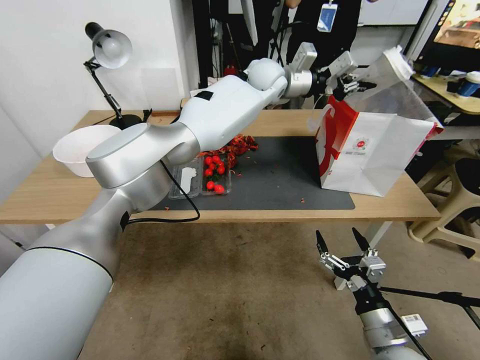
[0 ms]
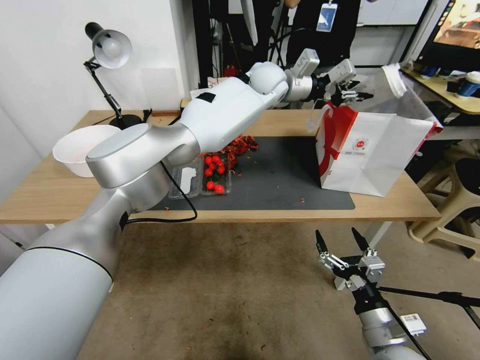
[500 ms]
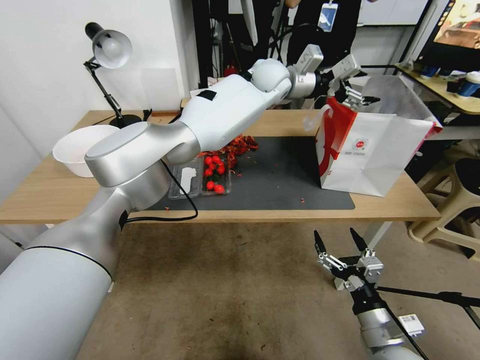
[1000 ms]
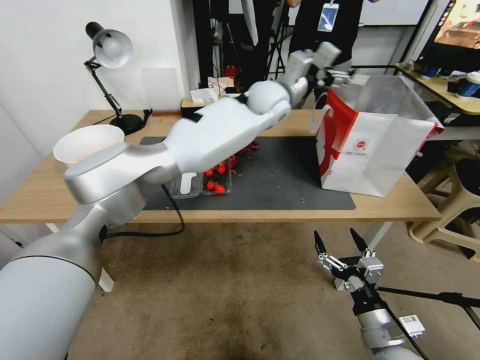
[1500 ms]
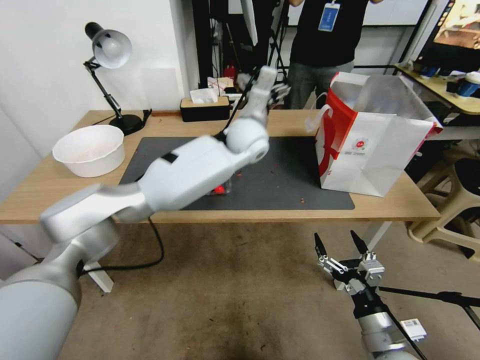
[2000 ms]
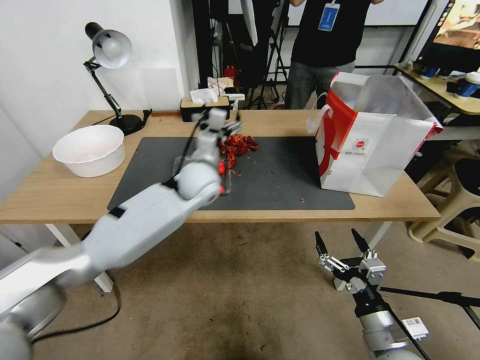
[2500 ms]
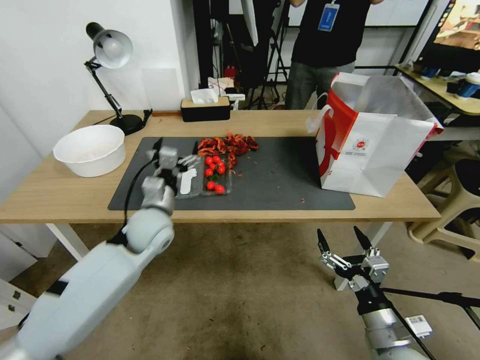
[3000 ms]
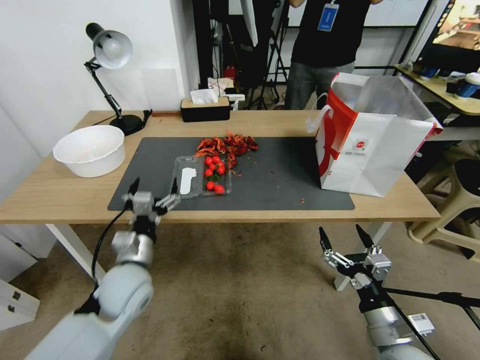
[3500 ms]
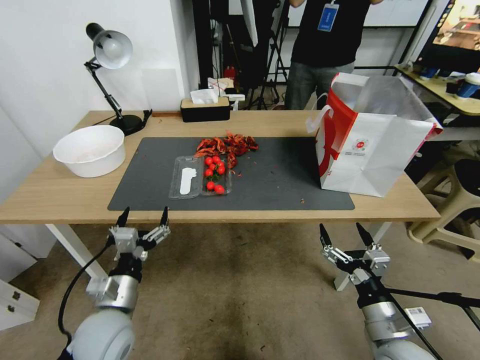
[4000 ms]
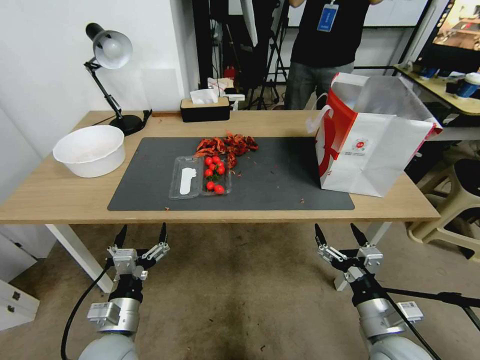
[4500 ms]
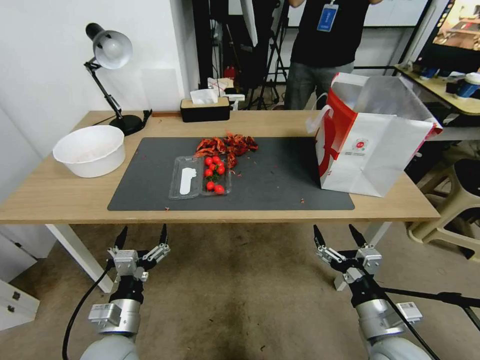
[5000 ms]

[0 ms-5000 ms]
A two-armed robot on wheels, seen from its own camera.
0 ms to 2500 ms: The left gripper goes roughly 30 cm downward, backward and to the left, and opens.
2500 ms to 5000 ms: The left gripper goes some 35 cm backward, downward and to the left.

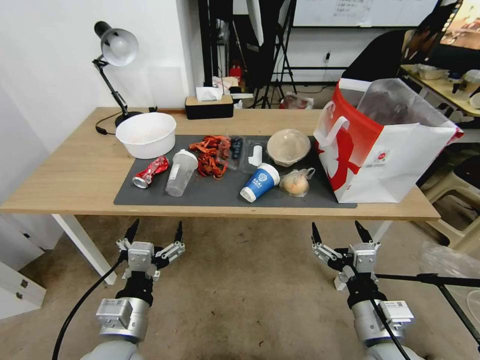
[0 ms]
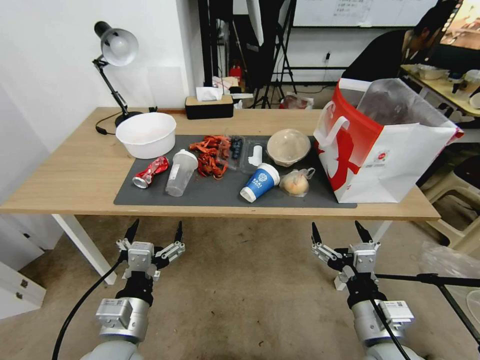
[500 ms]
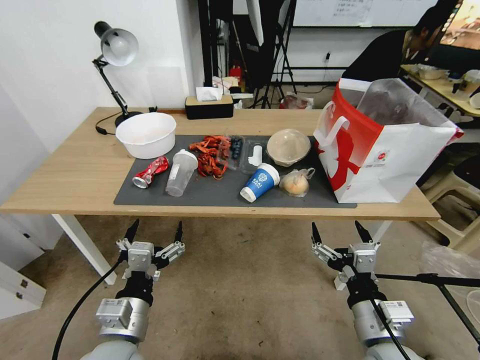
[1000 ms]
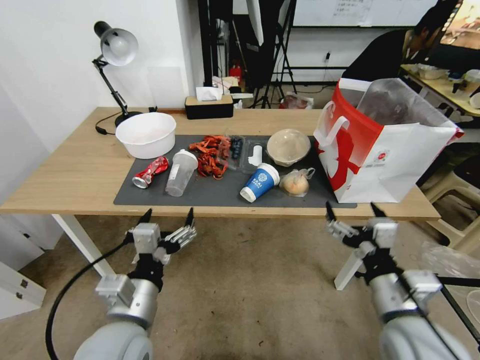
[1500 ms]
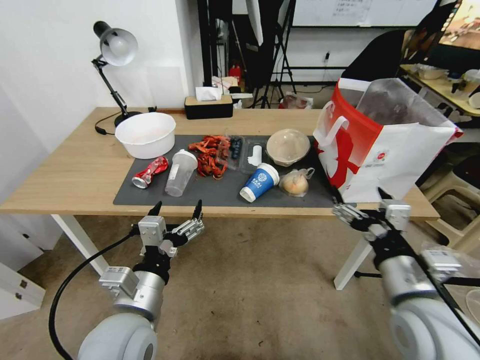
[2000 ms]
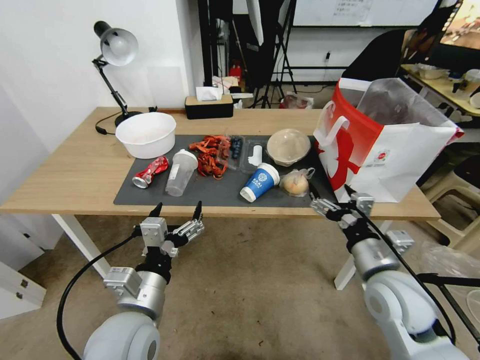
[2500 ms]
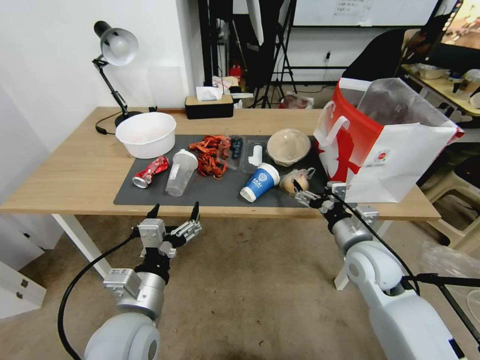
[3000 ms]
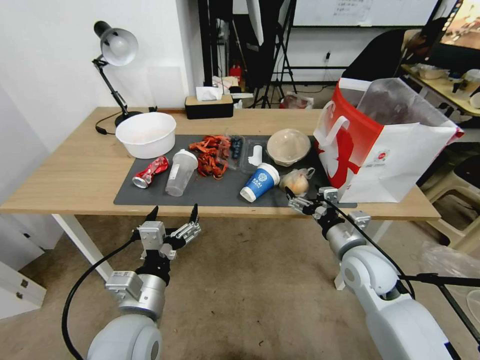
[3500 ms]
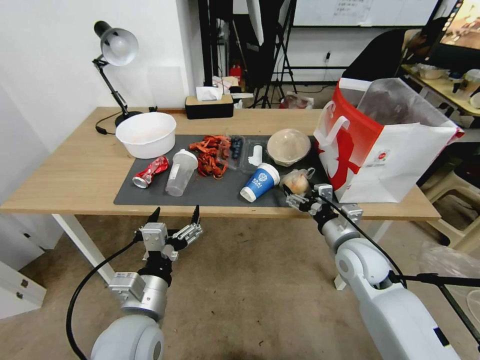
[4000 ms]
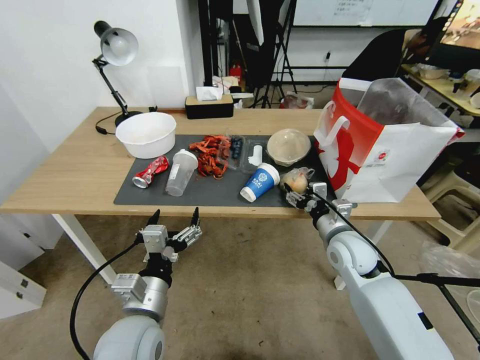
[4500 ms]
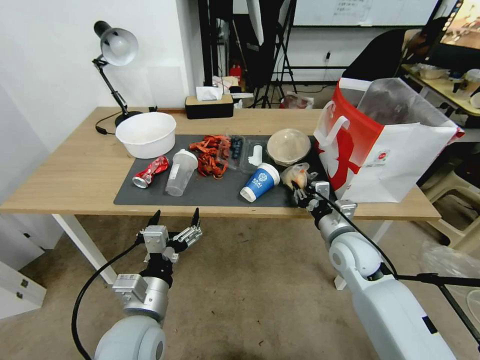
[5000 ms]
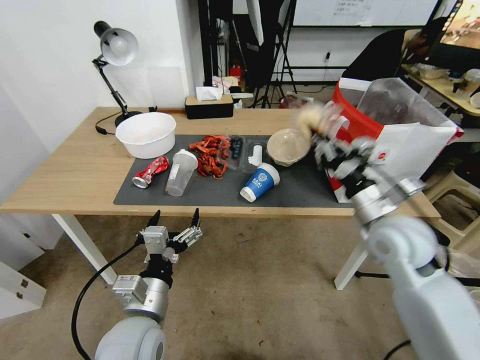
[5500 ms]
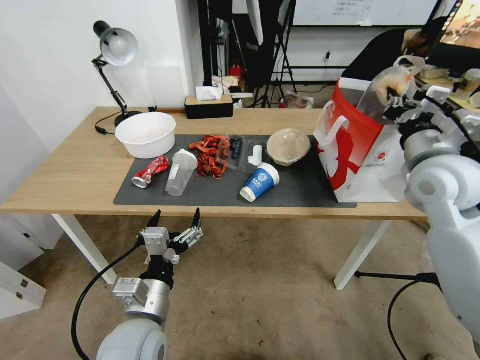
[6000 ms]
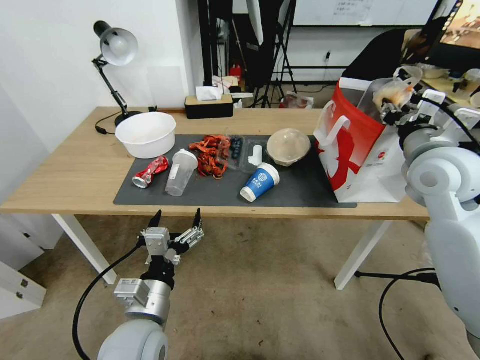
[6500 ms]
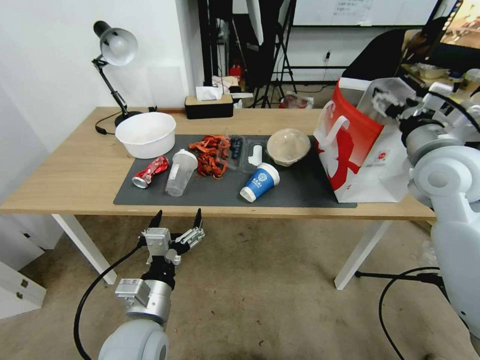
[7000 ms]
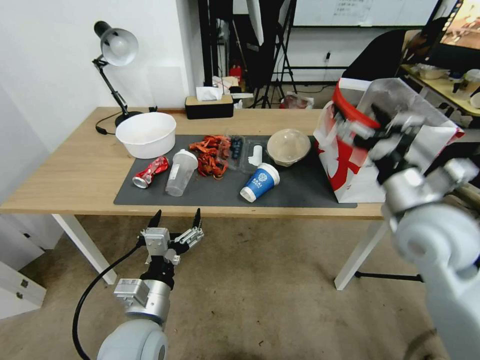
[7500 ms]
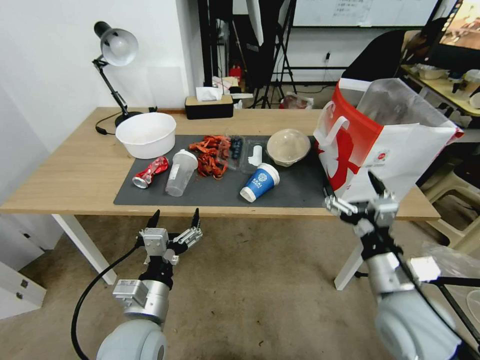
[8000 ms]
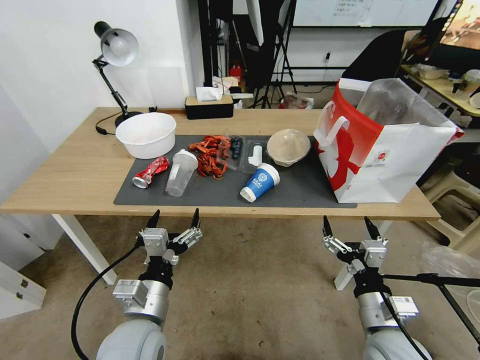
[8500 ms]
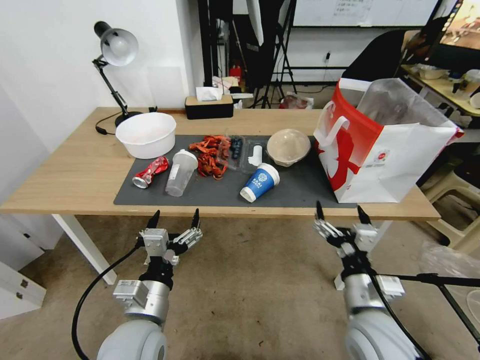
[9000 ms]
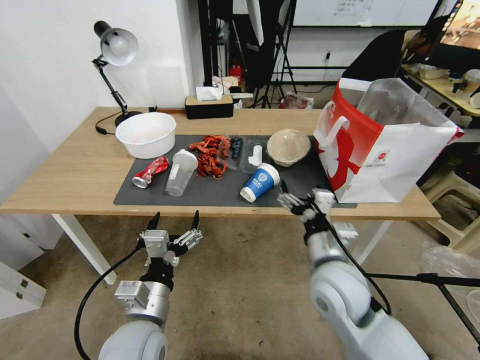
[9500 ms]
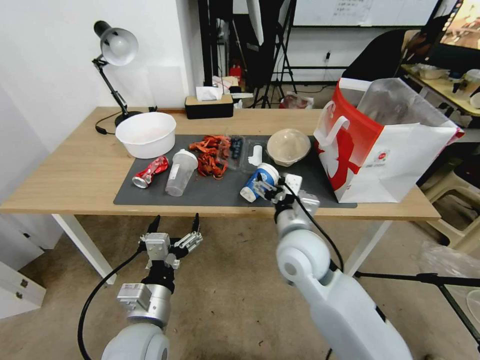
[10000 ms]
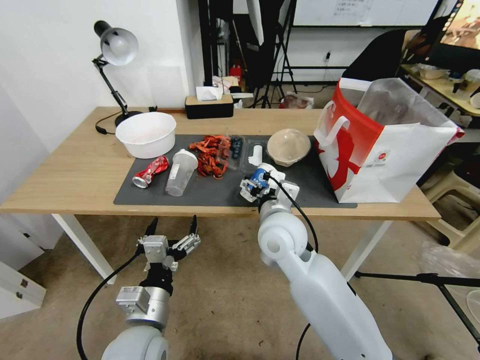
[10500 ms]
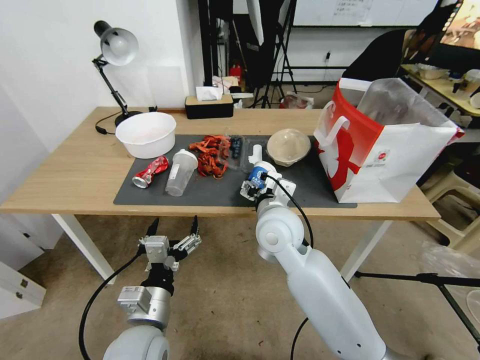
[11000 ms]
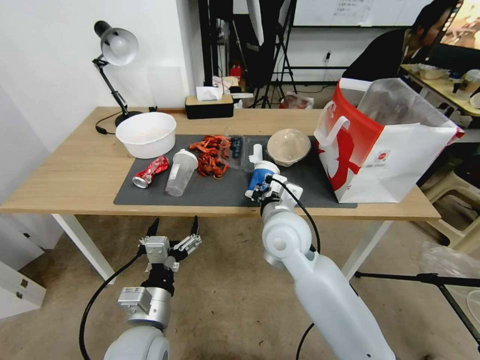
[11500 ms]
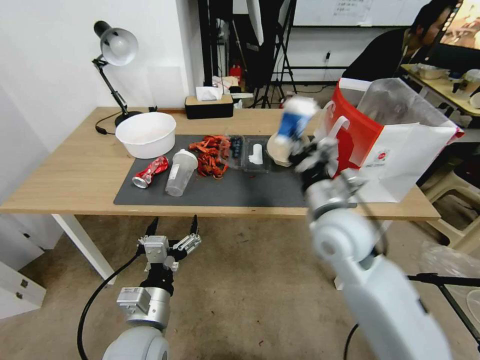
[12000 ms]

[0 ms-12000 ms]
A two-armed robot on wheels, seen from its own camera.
2000 ms to 4000 ms: The right gripper shifts roughly 15 cm forward and downward.
4000 ms to 6000 ms: The right gripper moves upward and to the right, roughly 20 cm, and closes its fingers.
6000 ms to 8000 ms: The right gripper travels backward, downward and to the left by approximately 25 cm, and opens.
8000 ms to 10000 ms: The right gripper travels to the left and forward by some 20 cm.
10000 ms to 12000 ms: The right gripper heads to the right and upward, covering some 10 cm, and closes its fingers.

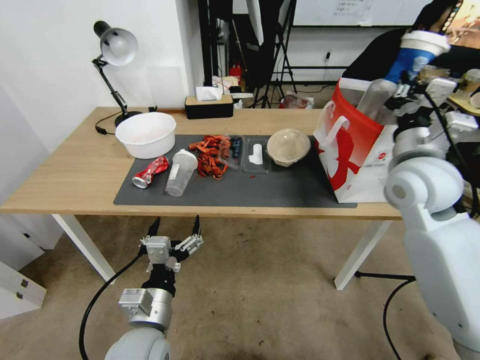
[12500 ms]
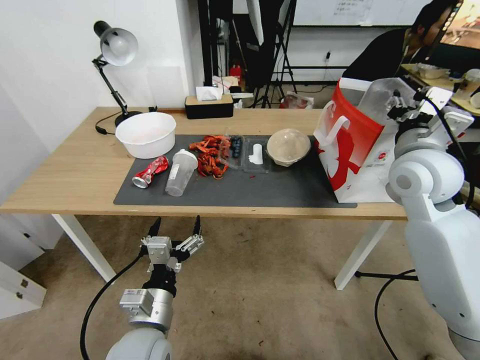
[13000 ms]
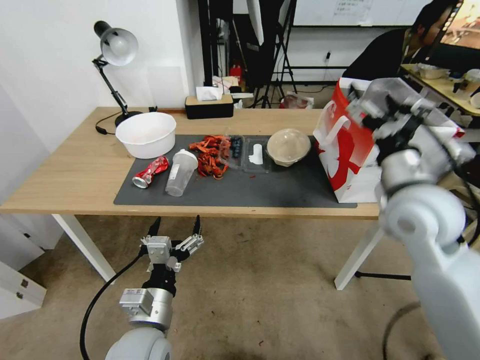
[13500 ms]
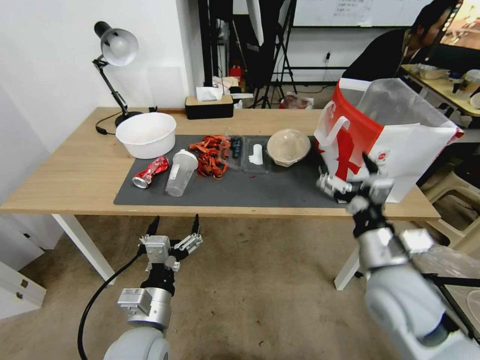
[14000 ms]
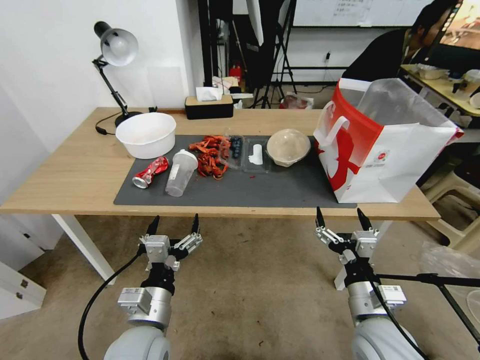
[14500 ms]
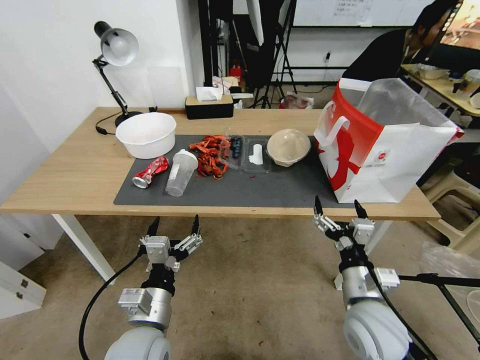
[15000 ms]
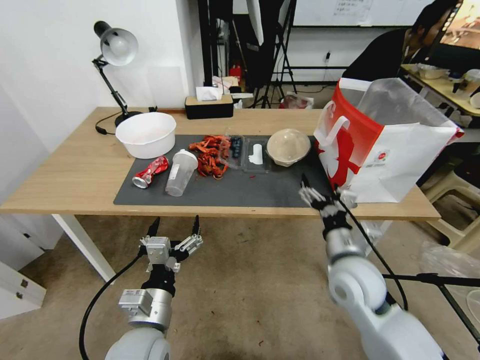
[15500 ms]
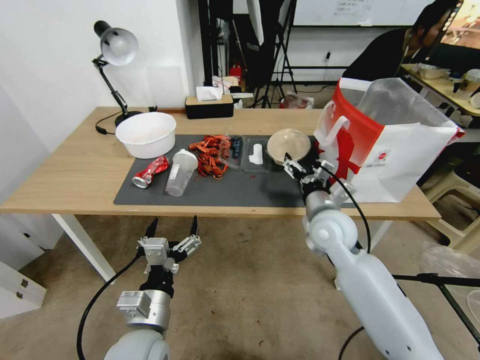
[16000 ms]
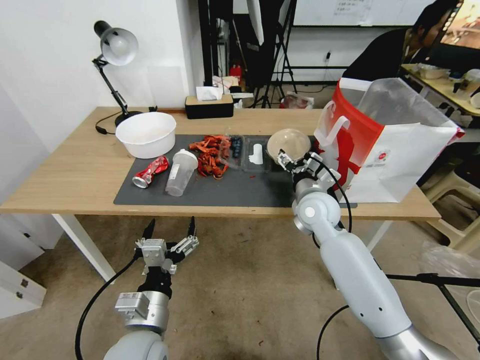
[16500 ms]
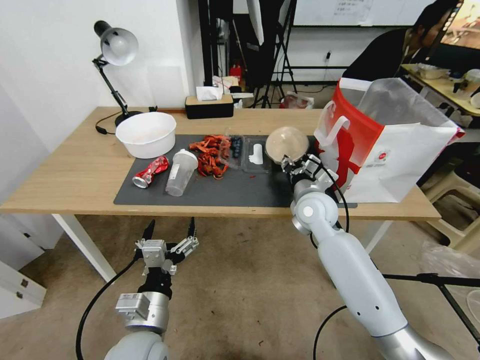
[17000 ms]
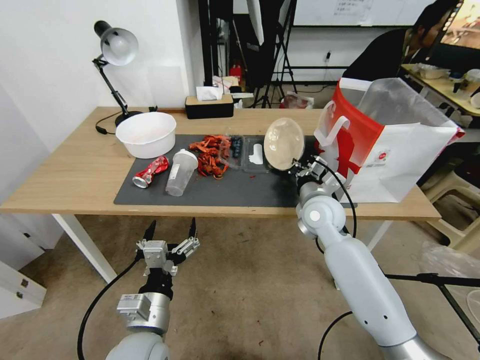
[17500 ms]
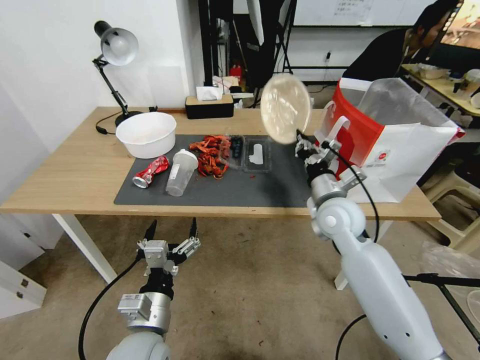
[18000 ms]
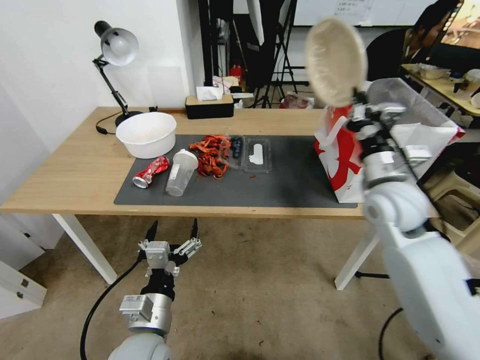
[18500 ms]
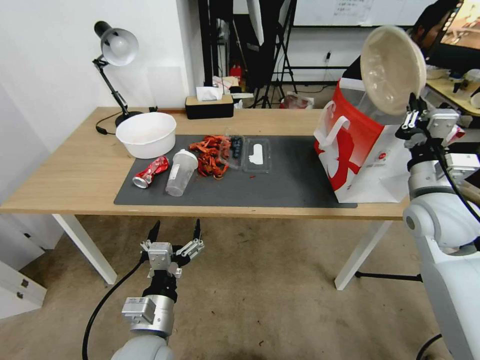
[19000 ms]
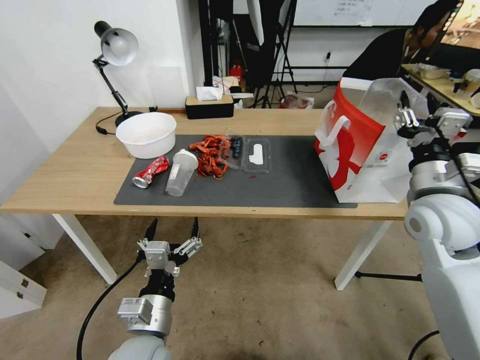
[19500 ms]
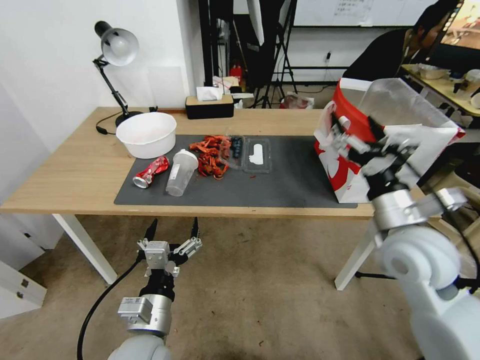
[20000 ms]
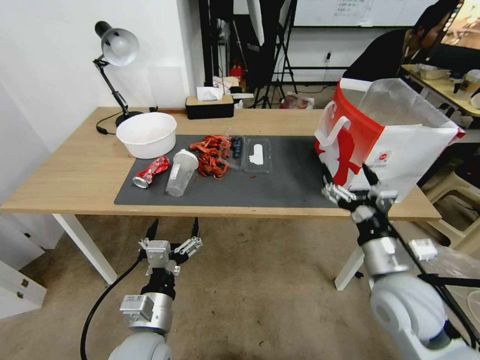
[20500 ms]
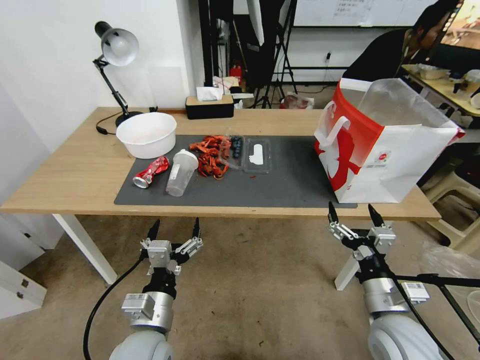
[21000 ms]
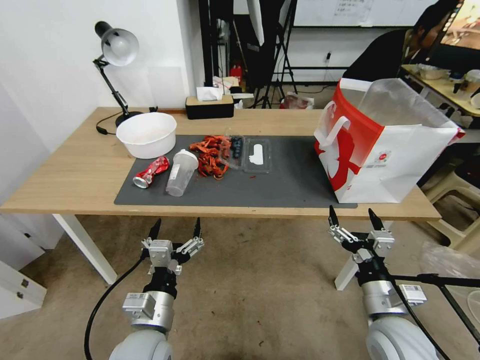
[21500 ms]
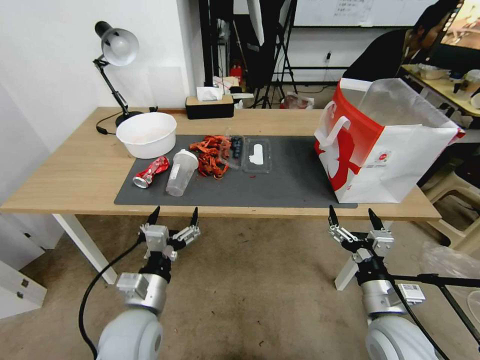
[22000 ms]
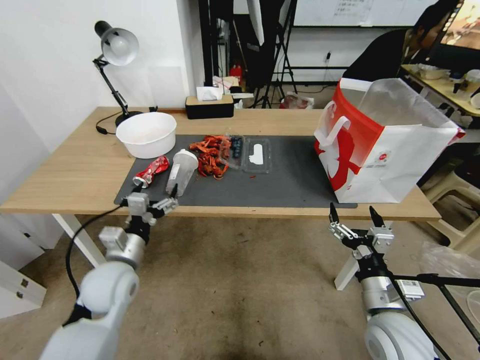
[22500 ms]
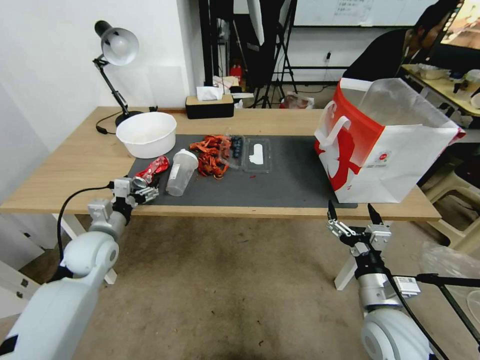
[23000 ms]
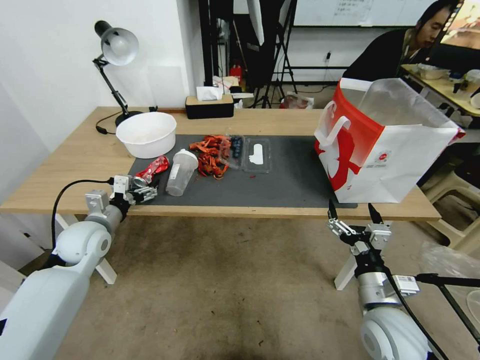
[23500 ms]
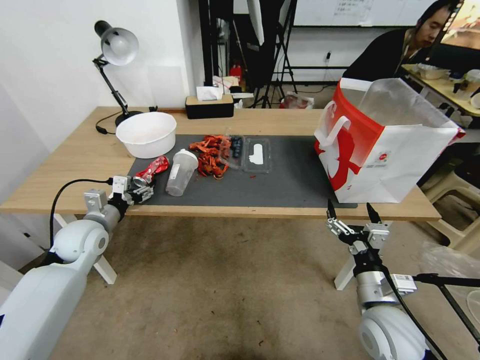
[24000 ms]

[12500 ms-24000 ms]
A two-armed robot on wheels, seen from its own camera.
12500 ms to 14500 ms: The right gripper travels downward and backward by some 30 cm, and opens its fingers.
14500 ms to 16500 ms: The right gripper travels forward by some 25 cm.
16500 ms to 18500 ms: The right gripper travels to the right, upward and backward by about 15 cm, and closes its fingers.
18500 ms to 20000 ms: The right gripper shifts roughly 10 cm backward, and opens its fingers.
20000 ms to 22000 ms: The right gripper travels downward and backward by approximately 20 cm.
22000 ms to 24000 ms: The left gripper heads forward and to the left, covering approximately 25 cm, and closes up.
